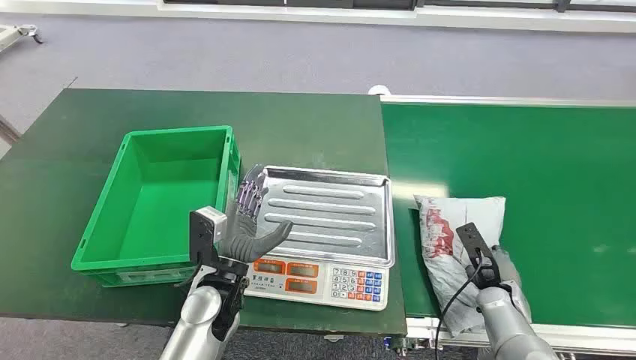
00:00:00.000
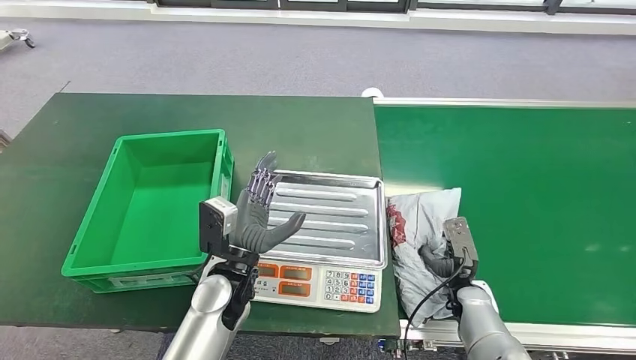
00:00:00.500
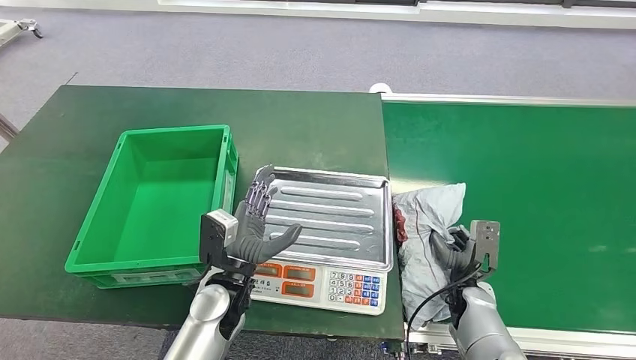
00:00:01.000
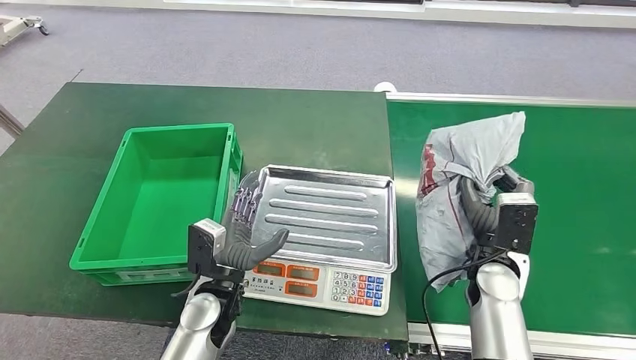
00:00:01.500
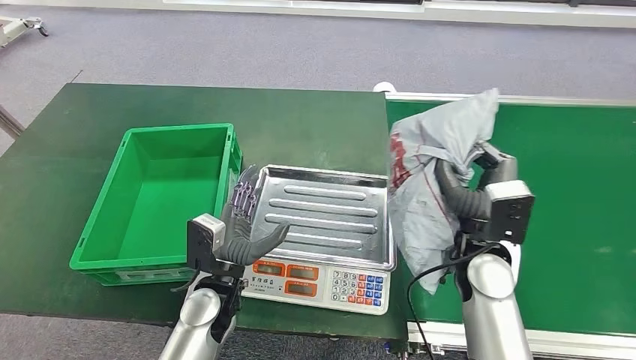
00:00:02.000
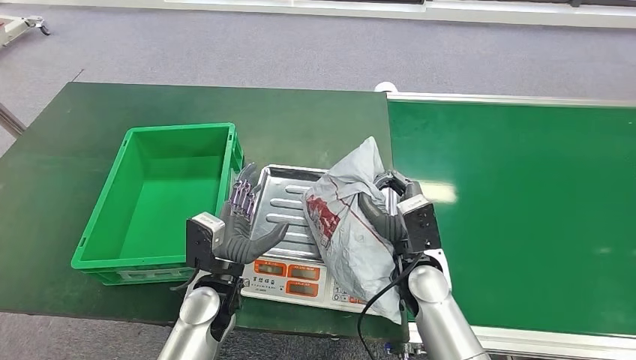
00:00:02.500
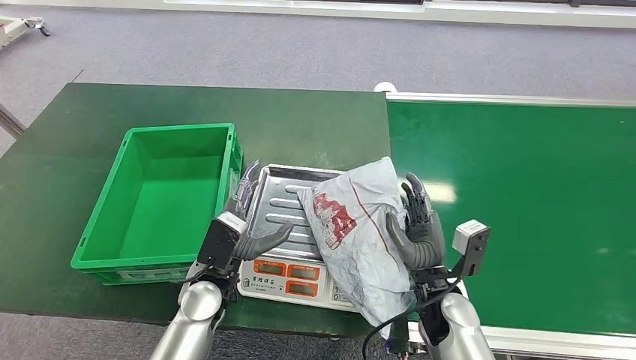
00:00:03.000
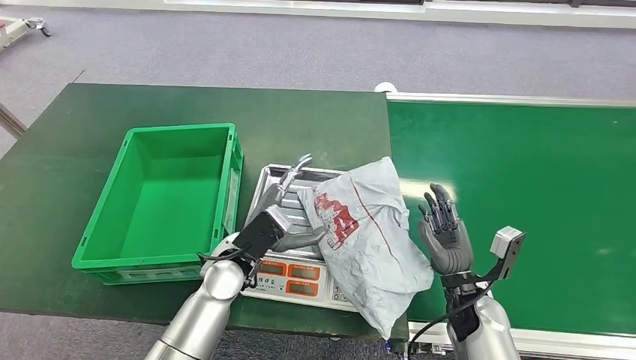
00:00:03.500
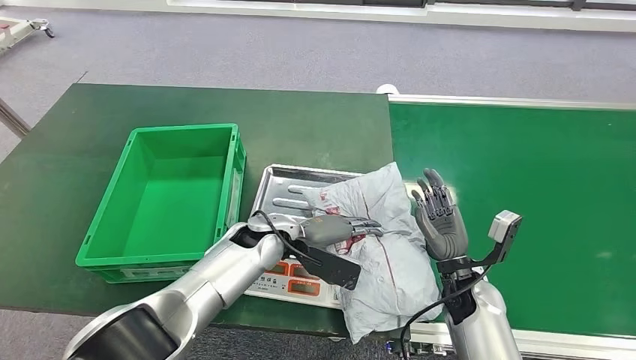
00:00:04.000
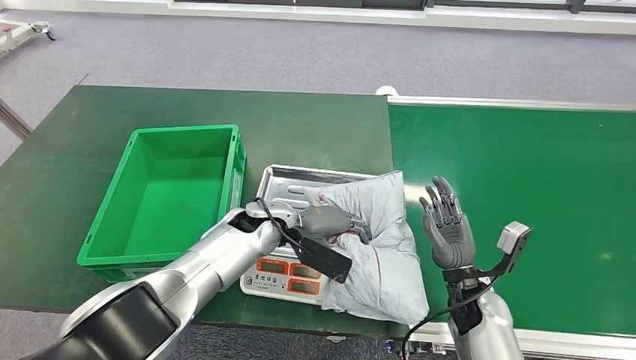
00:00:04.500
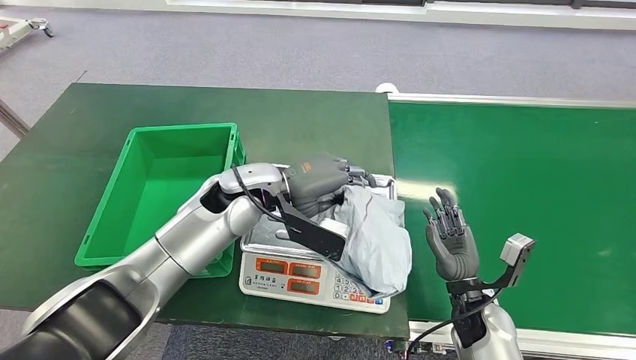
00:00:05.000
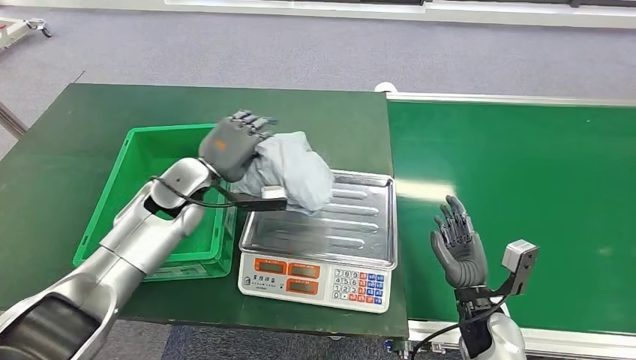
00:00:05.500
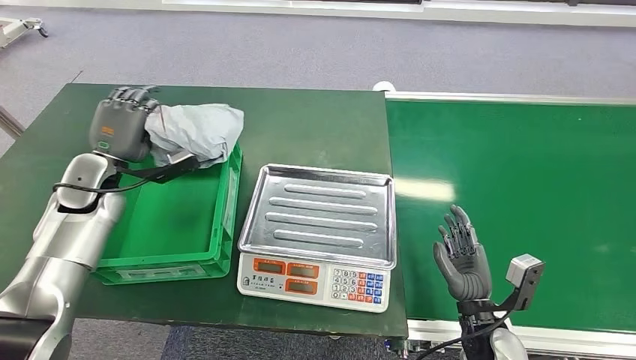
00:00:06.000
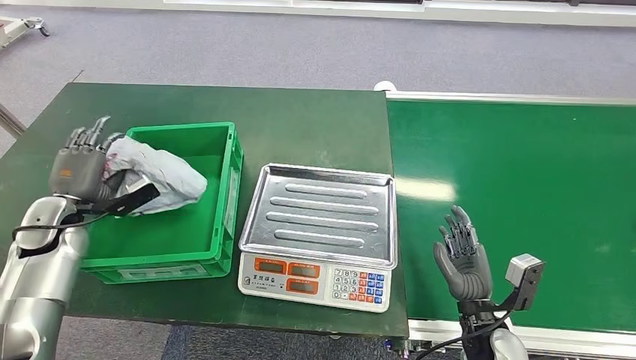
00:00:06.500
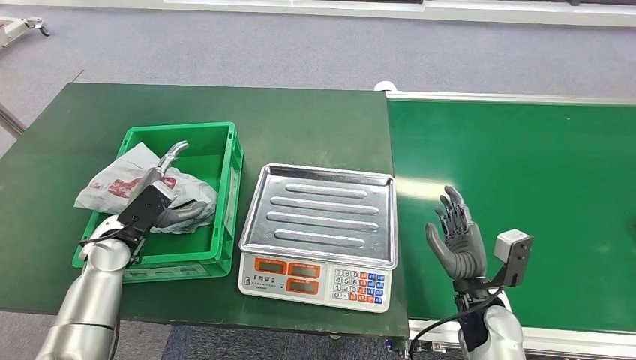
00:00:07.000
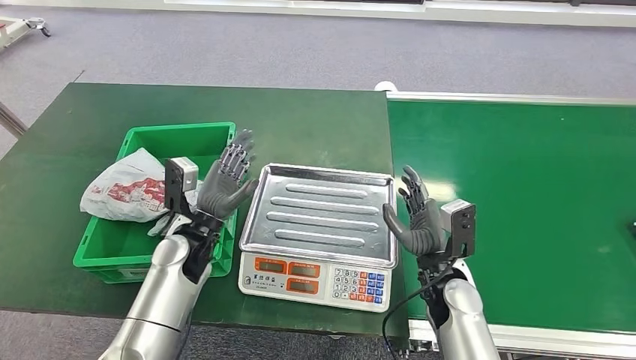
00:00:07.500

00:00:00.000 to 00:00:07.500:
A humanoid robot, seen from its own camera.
Step, 00:00:00.000 to 00:00:01.000: Pick up the package from the conveyor belt.
Step, 00:00:02.000 to 00:00:03.500: Place the package onto the inbound machine.
Step, 00:00:04.000 to 00:00:05.500: Pick up the package from the inbound machine.
Step, 00:00:06.000 to 00:00:07.500: Place the package into the parcel locker.
